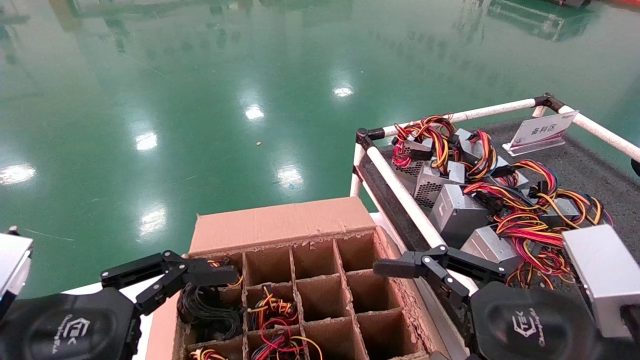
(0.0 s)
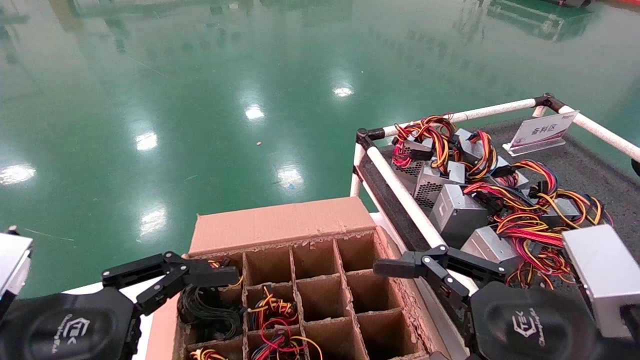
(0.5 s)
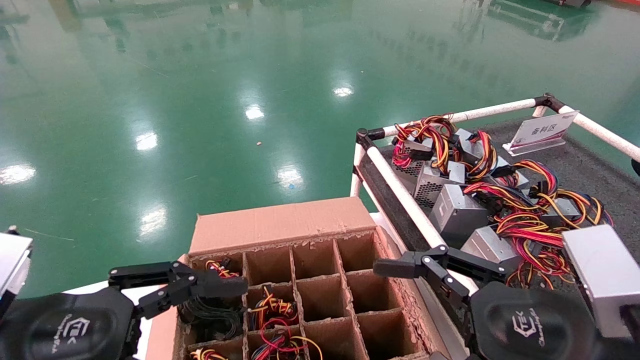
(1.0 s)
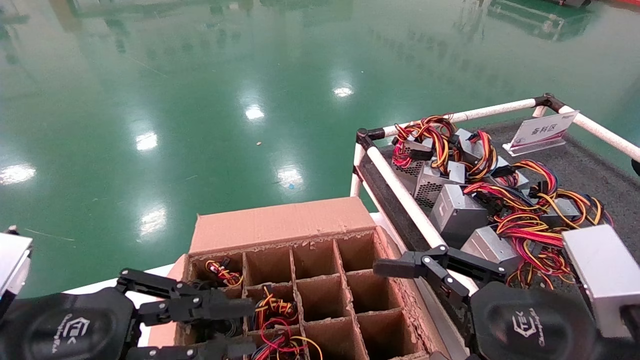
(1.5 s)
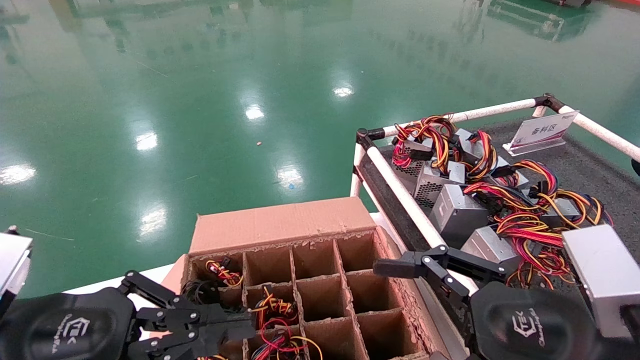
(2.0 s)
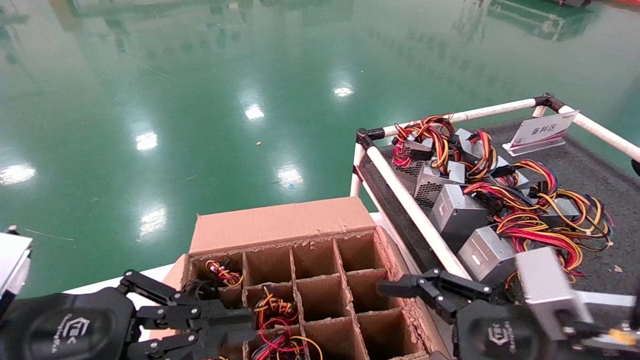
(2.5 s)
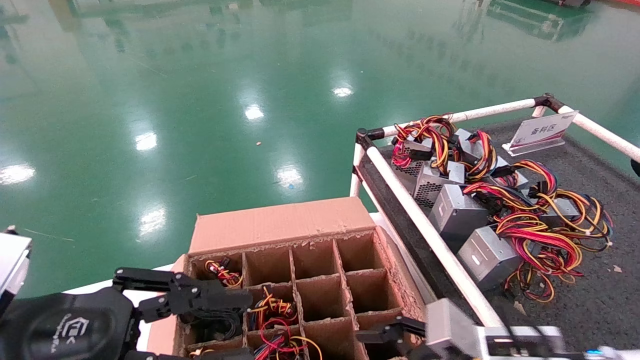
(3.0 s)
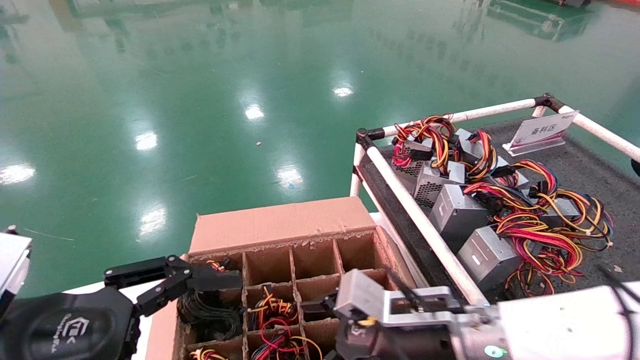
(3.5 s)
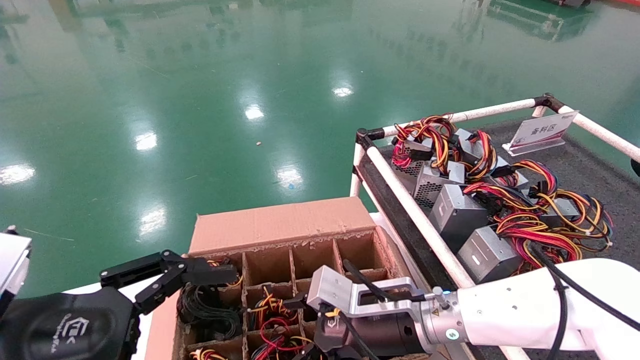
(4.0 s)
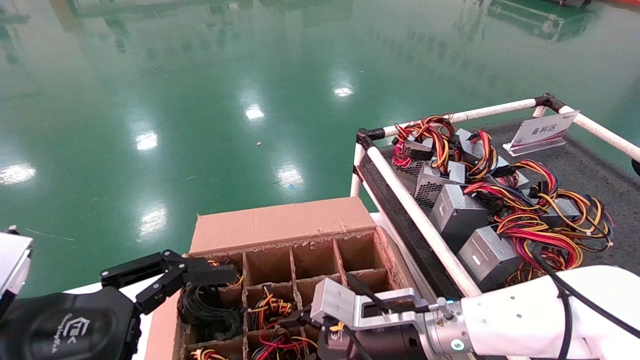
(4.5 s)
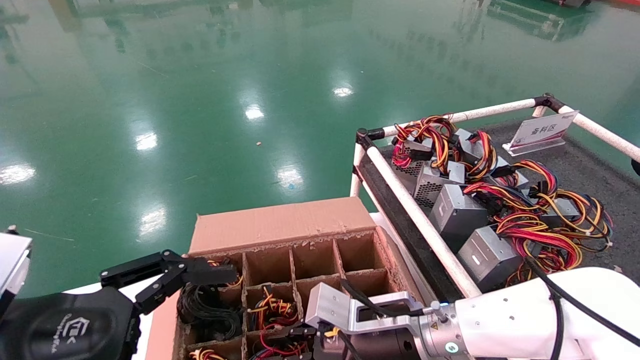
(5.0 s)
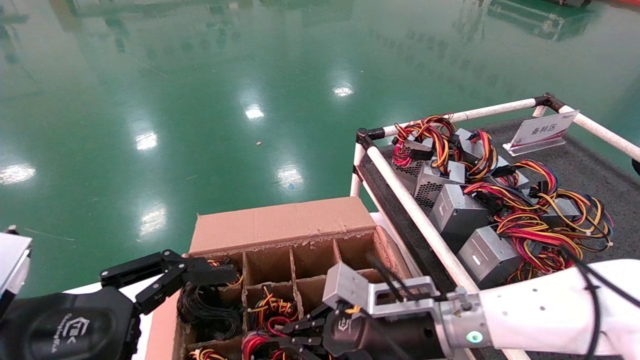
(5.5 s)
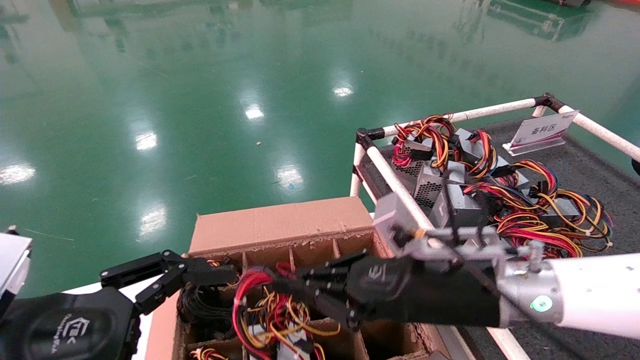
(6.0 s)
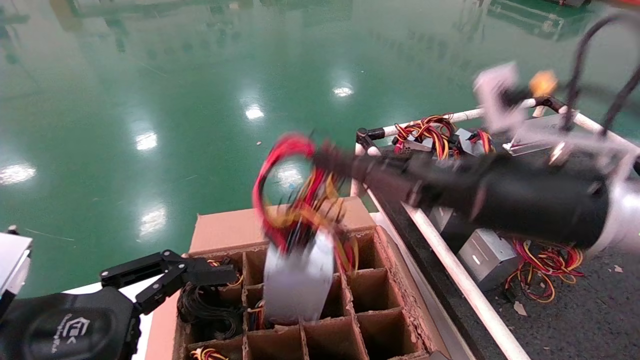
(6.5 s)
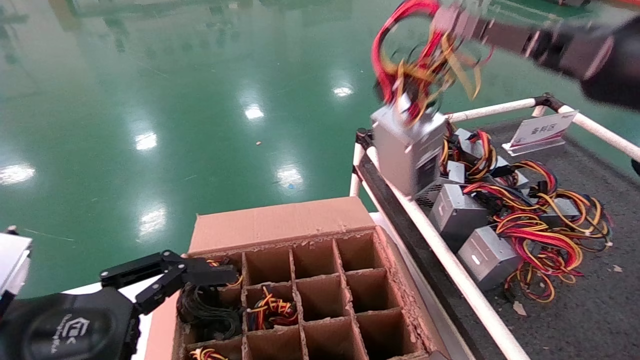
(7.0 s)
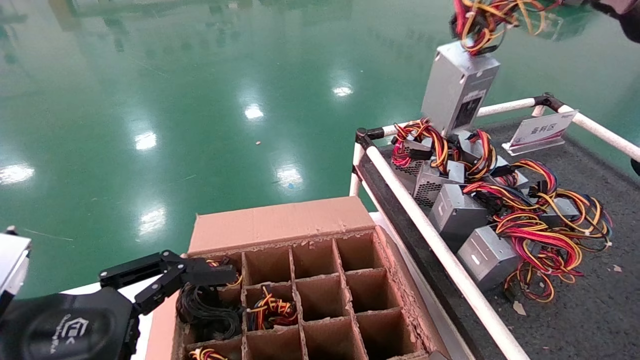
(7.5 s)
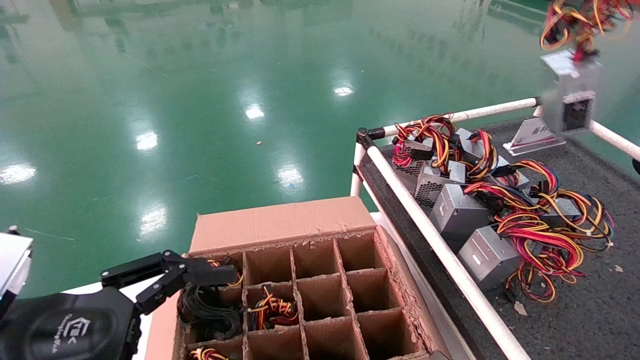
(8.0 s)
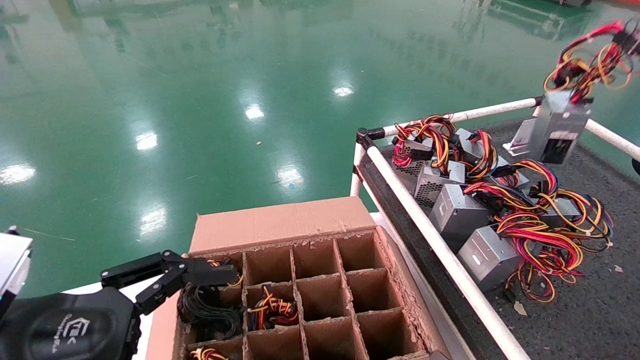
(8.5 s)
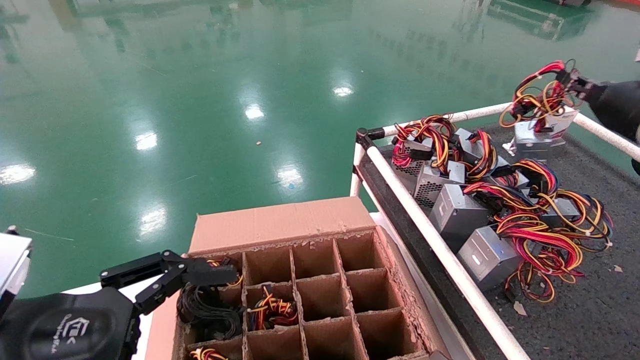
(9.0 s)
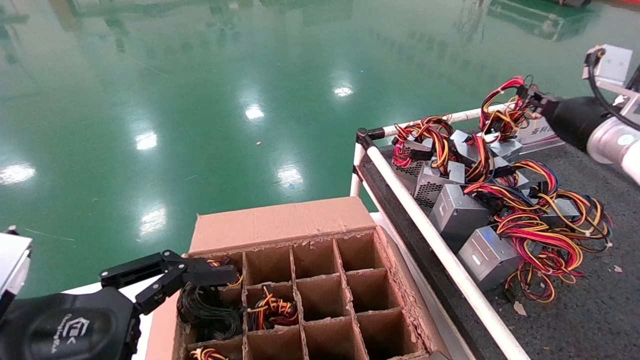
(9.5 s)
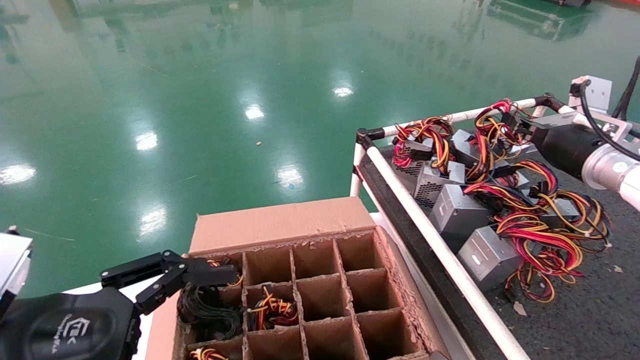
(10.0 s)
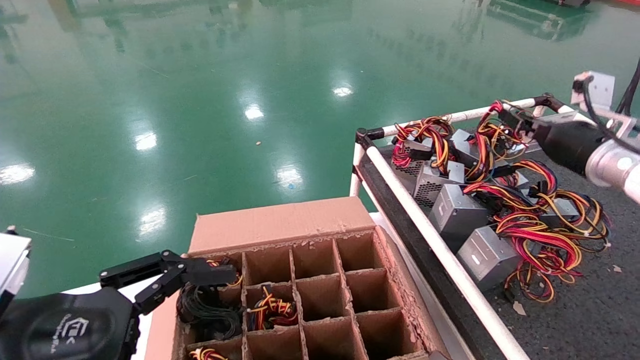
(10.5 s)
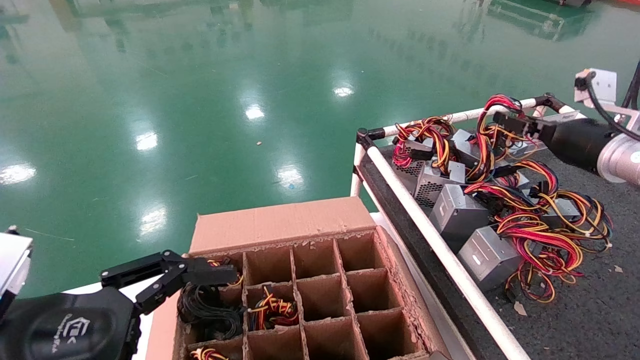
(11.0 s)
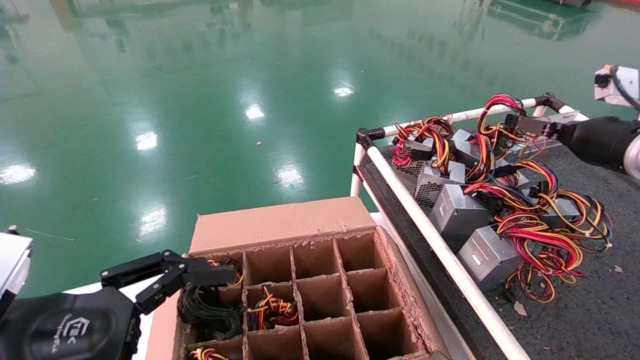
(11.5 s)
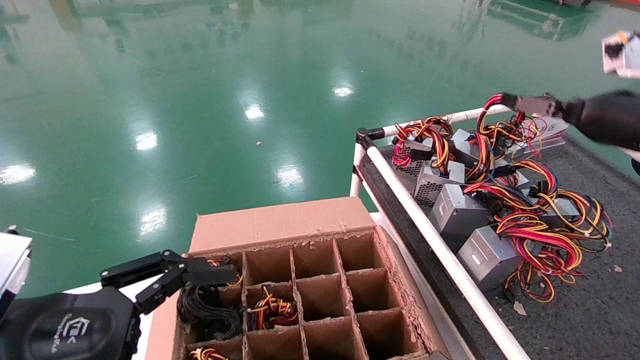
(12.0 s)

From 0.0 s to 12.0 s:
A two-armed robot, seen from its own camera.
Step, from 3.0 s to 5.0 s: Grab and lift the power supply from the large box.
Step, from 5.5 s to 10.5 s: Place the power supply on the operating table.
From 0.0 s to 2.0 s: The left gripper closes its fingers.
From 2.0 s to 4.0 s: The right gripper is displaced forward, to the left and downward by approximately 25 cm; the left gripper opens.
From 4.0 s to 6.0 s: The right gripper is displaced upward and backward by approximately 10 cm, and closes its fingers.
From 6.0 s to 8.0 s: The right gripper shifts approximately 40 cm to the right and upward.
From 8.0 s to 10.0 s: The right gripper heads downward, forward and to the left, covering approximately 20 cm.
From 10.0 s to 12.0 s: The right gripper is displaced backward and upward by approximately 10 cm, and opens up.

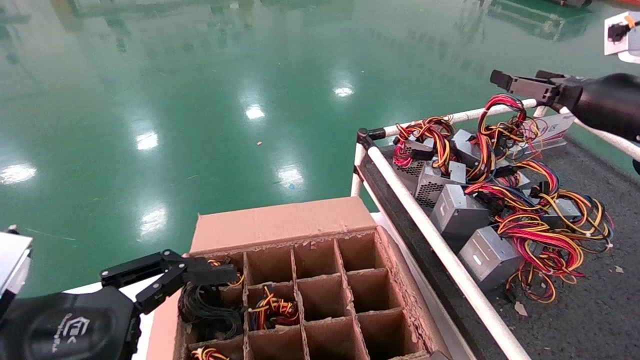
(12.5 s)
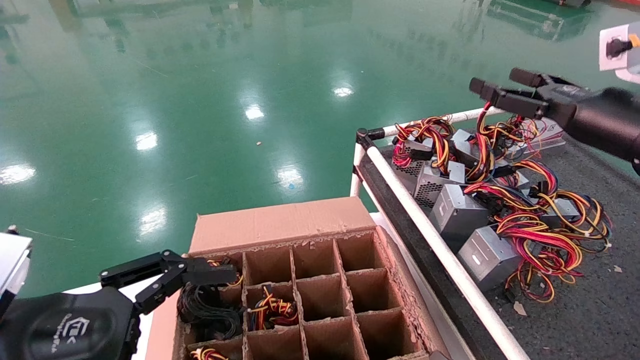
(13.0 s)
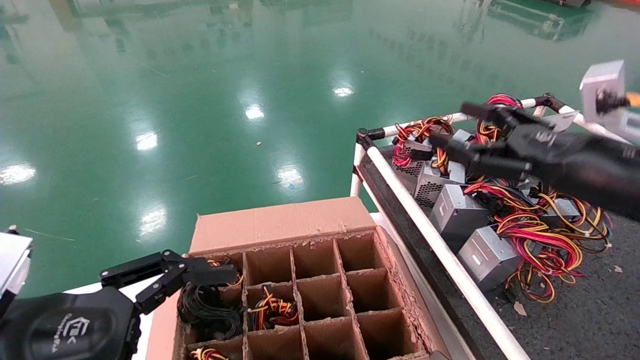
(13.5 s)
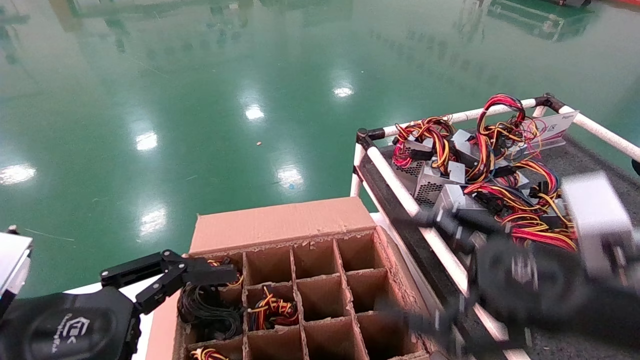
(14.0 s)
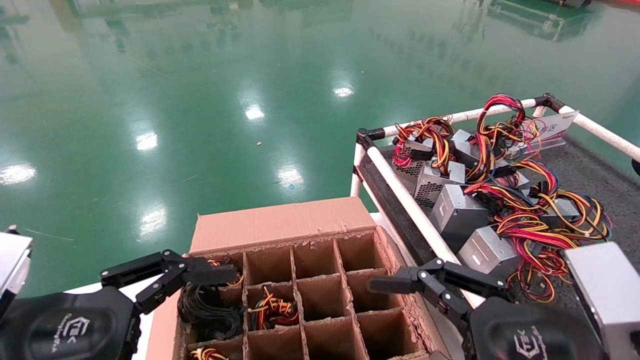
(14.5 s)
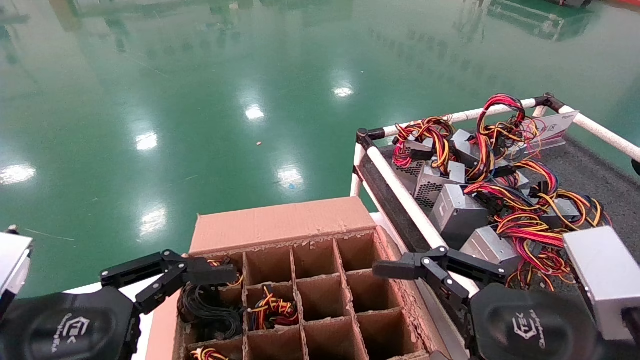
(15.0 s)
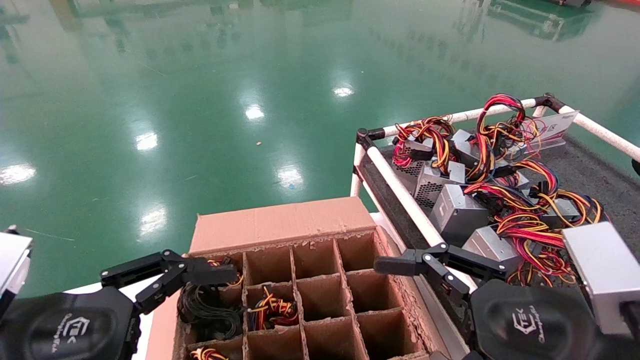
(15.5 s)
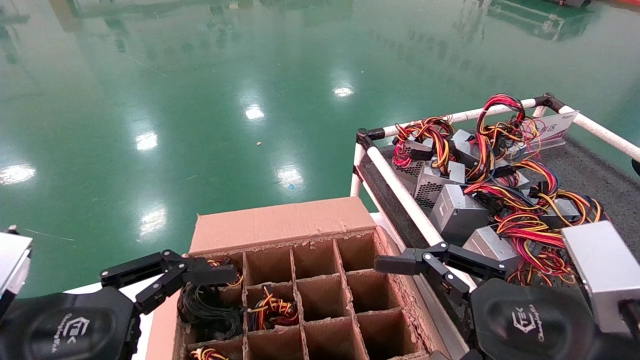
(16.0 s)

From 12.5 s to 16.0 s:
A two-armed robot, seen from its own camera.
From 12.5 s to 14.5 s: The right gripper is displaced backward, downward and to the left by approximately 30 cm.
From 14.5 s to 16.0 s: Neither gripper changes place.
